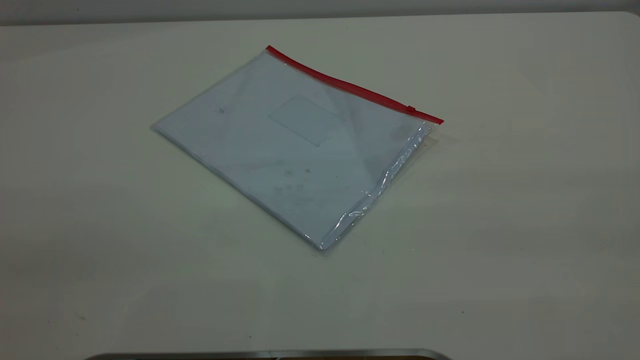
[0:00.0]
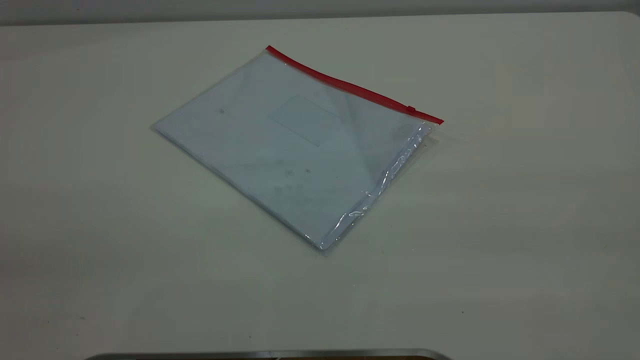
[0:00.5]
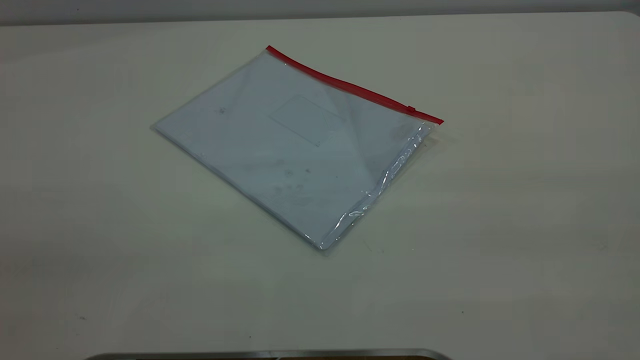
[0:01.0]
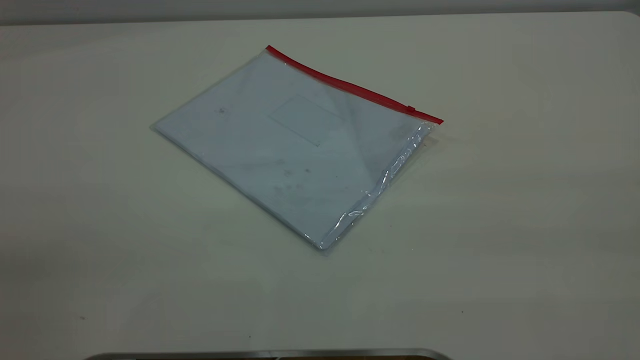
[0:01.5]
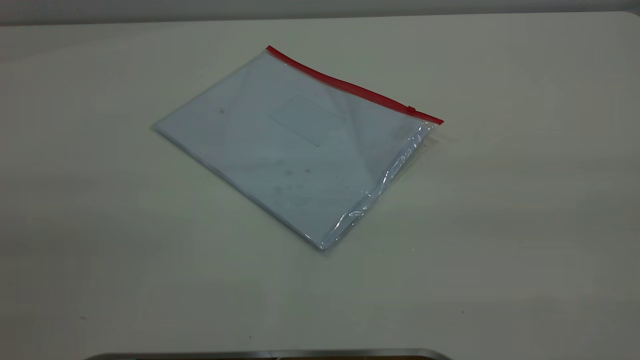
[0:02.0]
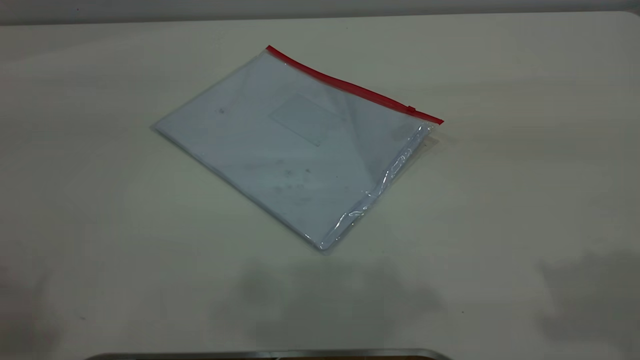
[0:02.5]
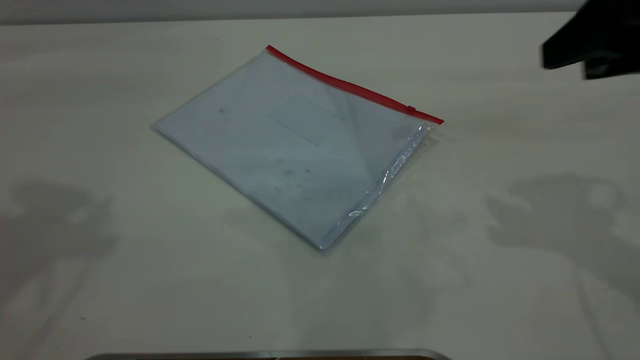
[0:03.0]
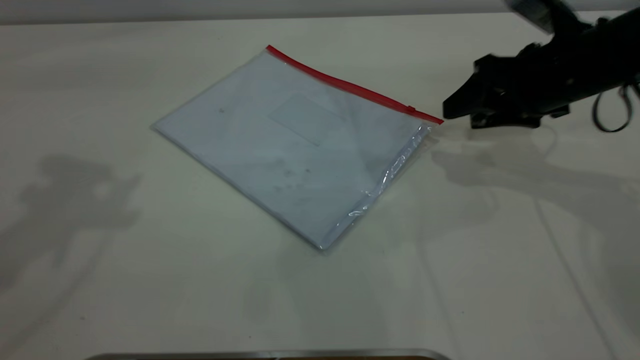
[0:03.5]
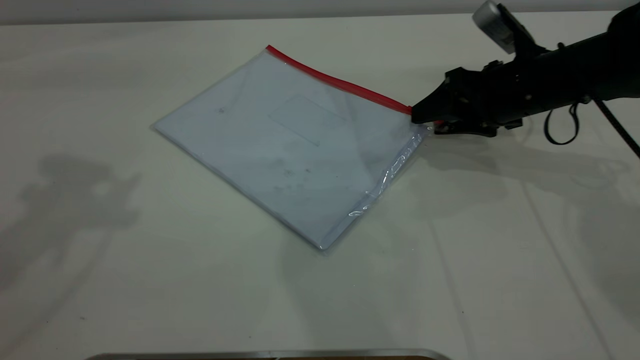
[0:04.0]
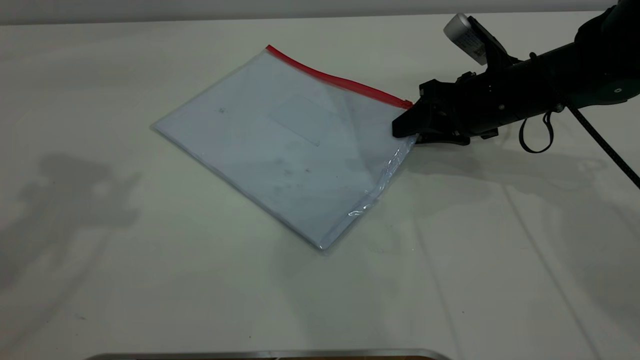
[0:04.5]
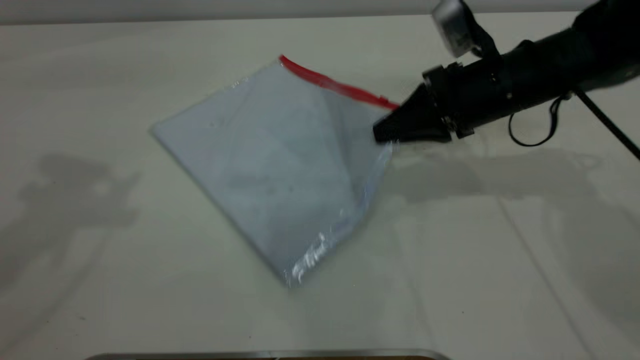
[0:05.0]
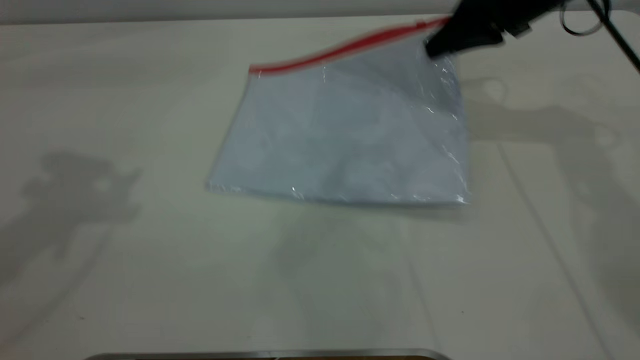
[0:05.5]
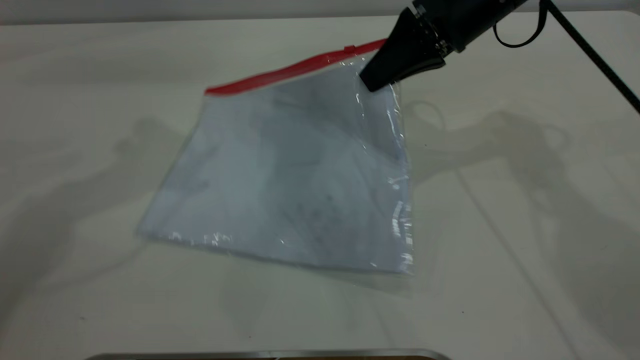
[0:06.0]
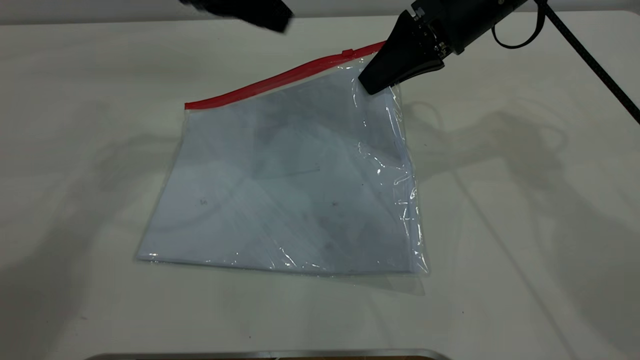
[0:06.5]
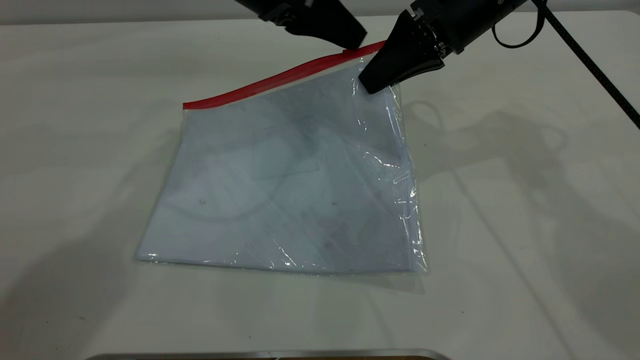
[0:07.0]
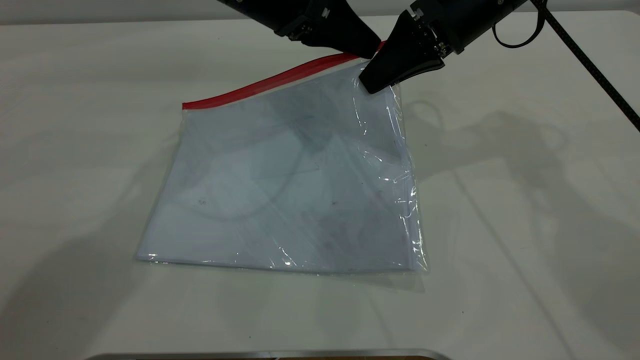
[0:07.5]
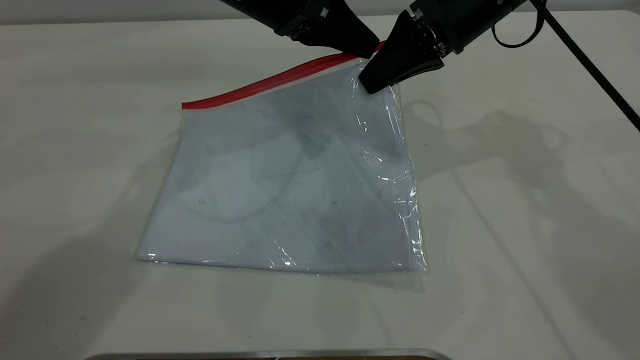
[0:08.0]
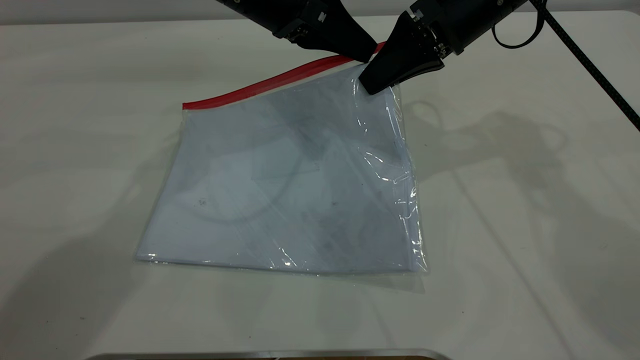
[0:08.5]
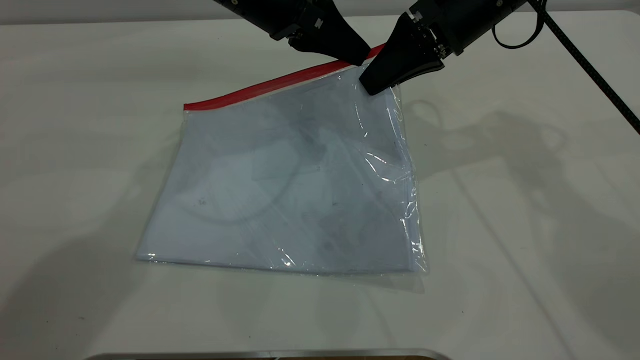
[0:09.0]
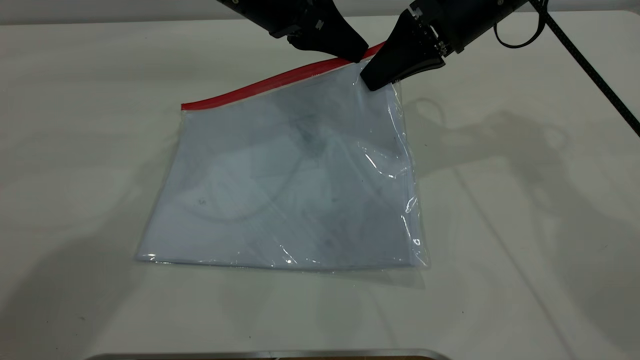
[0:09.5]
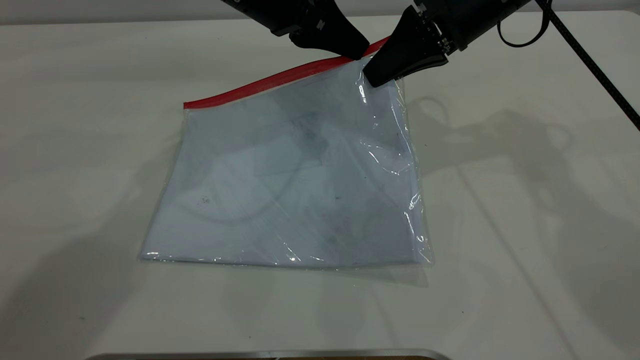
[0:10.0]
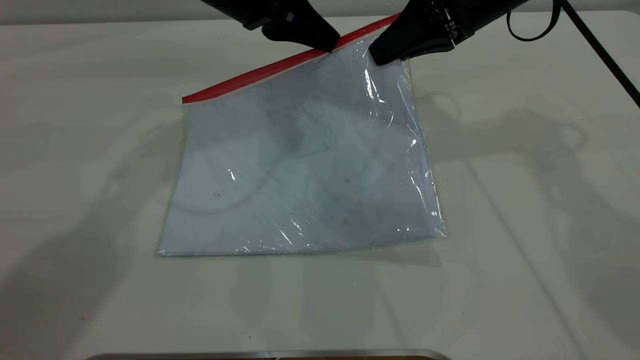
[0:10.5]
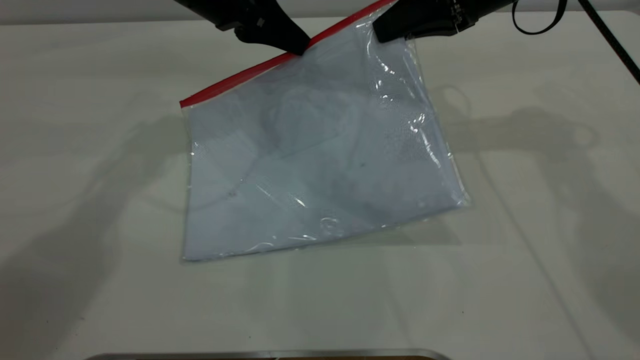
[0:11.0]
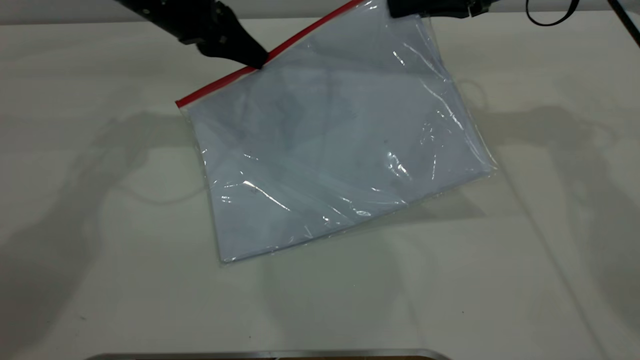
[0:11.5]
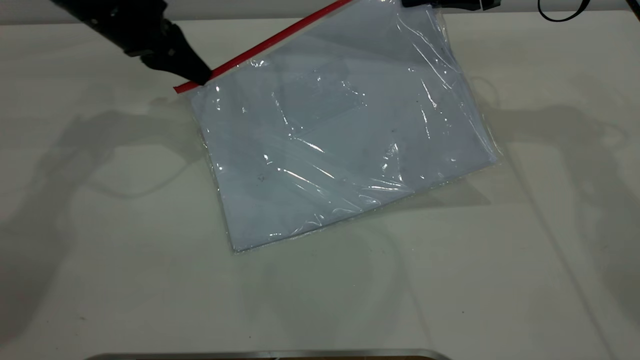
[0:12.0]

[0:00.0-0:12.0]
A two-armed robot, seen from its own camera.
Step, 0:00.0 to 0:06.0: Pick up the transparent plastic bag with the right gripper.
0:02.0 to 0:04.0: The right gripper is displaced forward and downward by approximately 50 cm.
0:04.0 to 0:06.0: The right gripper travels upward and to the left by approximately 15 cm, and closes up. Meanwhile the left gripper is displaced downward, forward and to the right by about 10 cm.
0:06.0 to 0:08.0: The left gripper shifts approximately 20 cm to the right and downward.
0:08.0 to 0:10.0: The left gripper closes its fingers.
0:10.0 to 0:12.0: The left gripper heads to the left, covering approximately 15 cm; the right gripper is displaced to the right by roughly 5 cm.

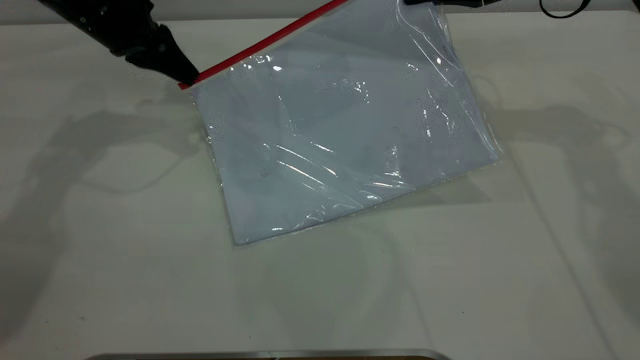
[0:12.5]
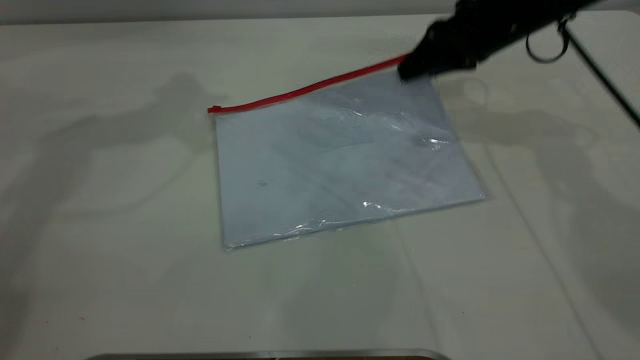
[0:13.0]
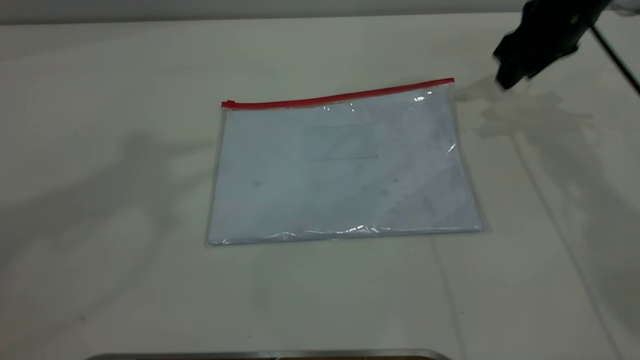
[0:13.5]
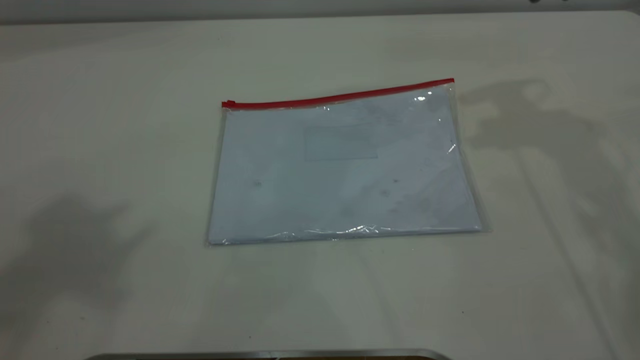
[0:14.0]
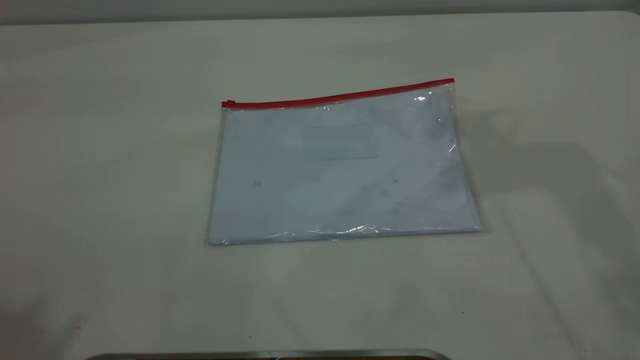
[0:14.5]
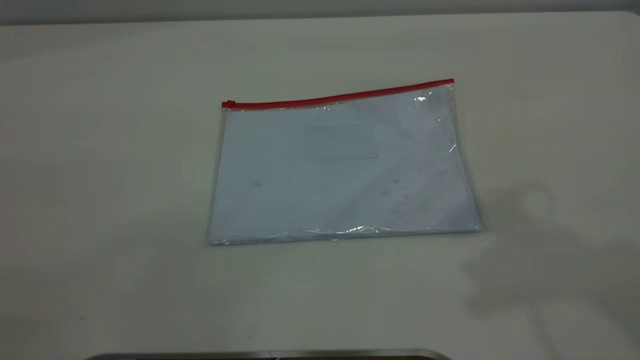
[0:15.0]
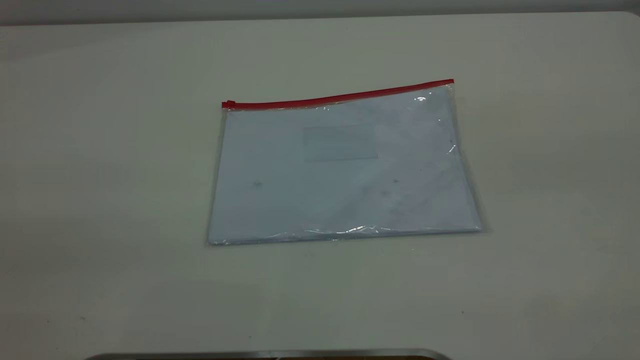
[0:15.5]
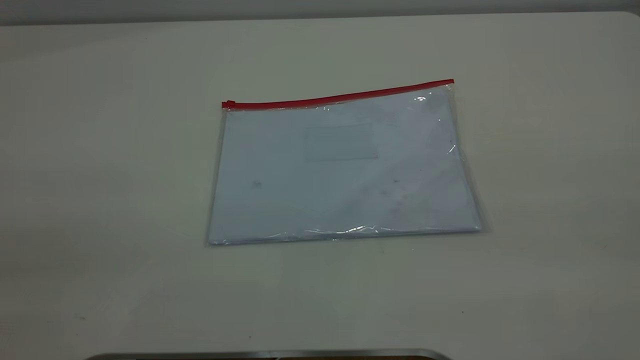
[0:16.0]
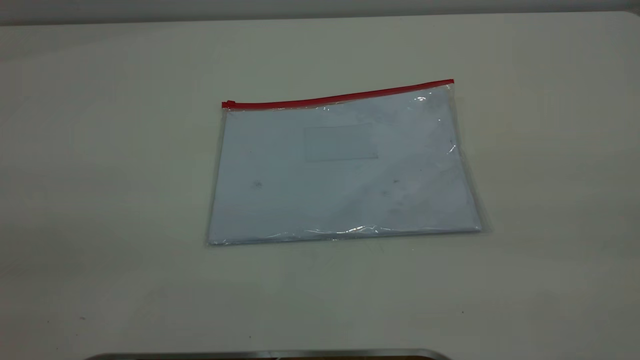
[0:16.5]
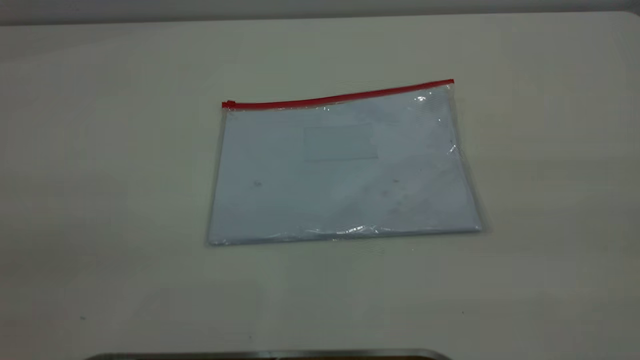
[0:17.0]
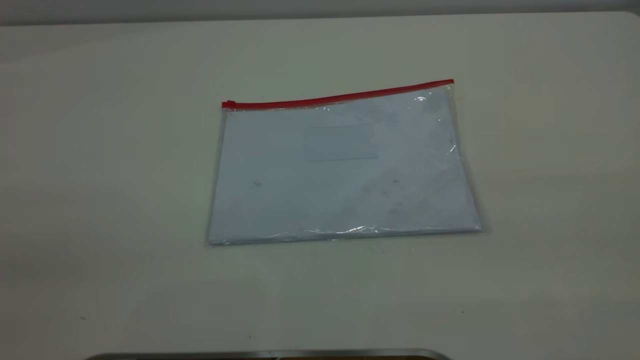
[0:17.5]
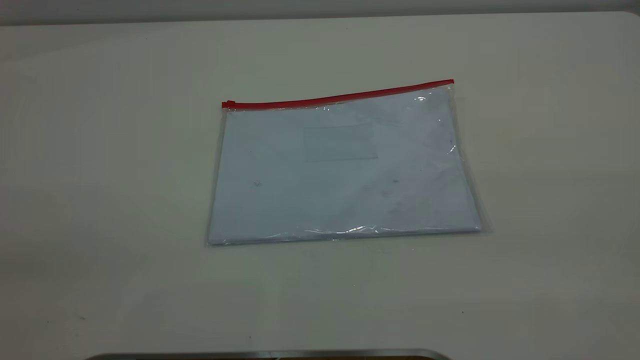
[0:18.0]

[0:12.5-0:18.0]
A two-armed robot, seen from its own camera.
Step, 0:13.0 to 0:13.5: Place the transparent plastic bag.
0:12.5 to 0:14.5: The left gripper goes about 50 cm upward and backward, and opens up, while the right gripper goes approximately 20 cm upward and backward, and opens its fingers.
